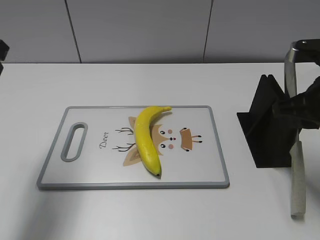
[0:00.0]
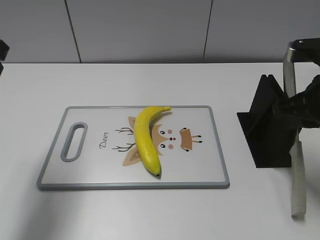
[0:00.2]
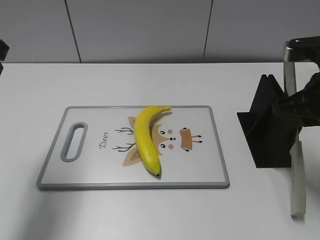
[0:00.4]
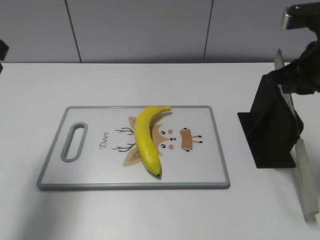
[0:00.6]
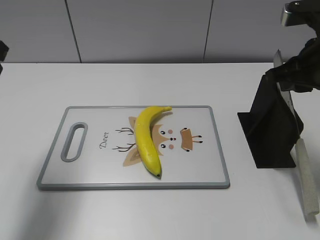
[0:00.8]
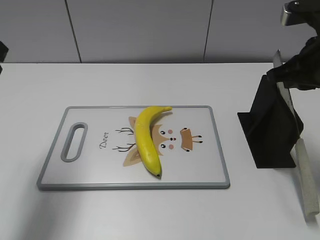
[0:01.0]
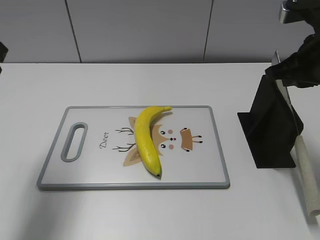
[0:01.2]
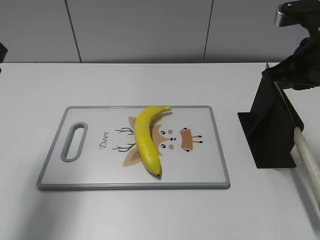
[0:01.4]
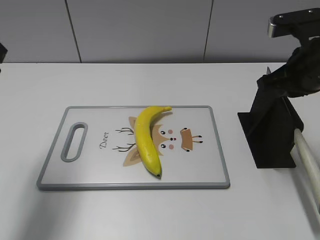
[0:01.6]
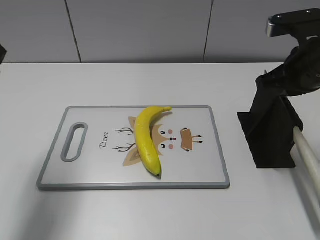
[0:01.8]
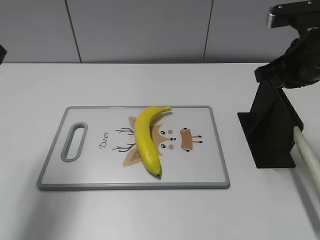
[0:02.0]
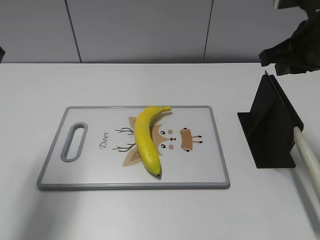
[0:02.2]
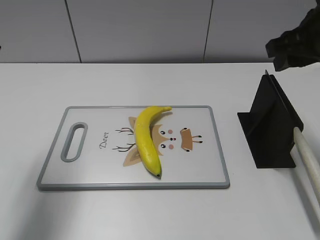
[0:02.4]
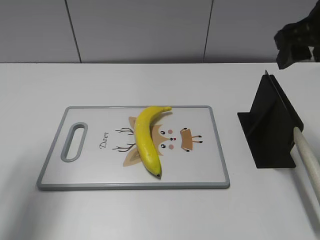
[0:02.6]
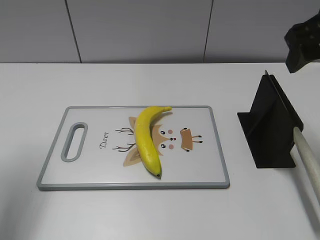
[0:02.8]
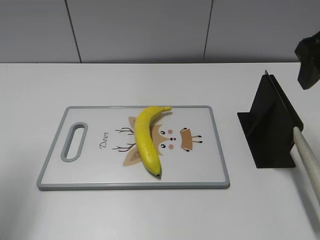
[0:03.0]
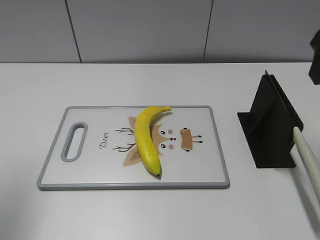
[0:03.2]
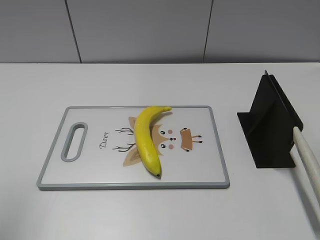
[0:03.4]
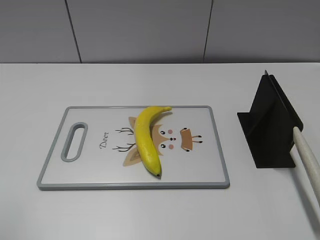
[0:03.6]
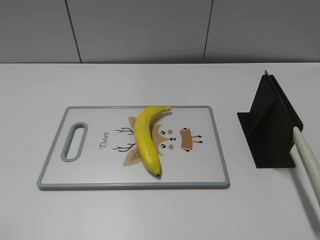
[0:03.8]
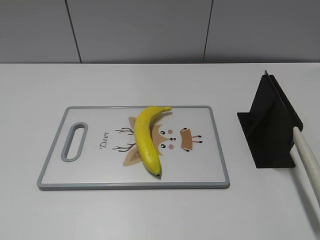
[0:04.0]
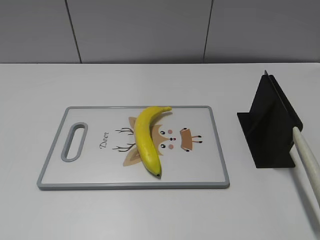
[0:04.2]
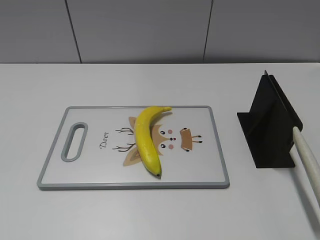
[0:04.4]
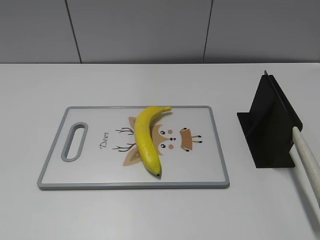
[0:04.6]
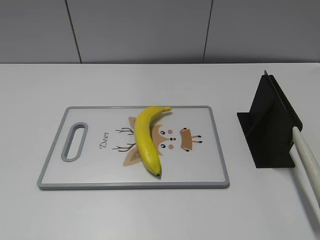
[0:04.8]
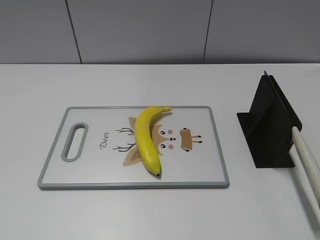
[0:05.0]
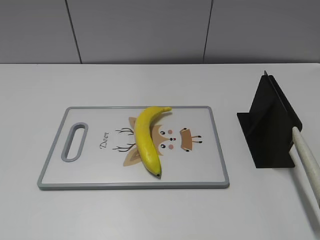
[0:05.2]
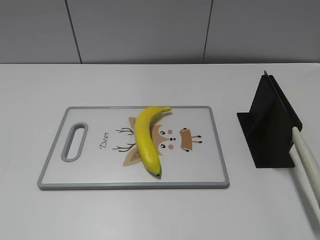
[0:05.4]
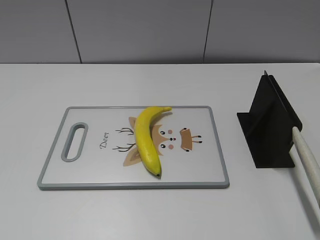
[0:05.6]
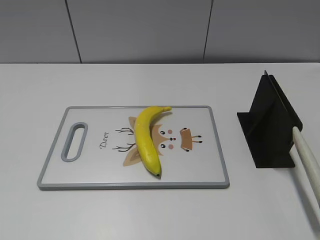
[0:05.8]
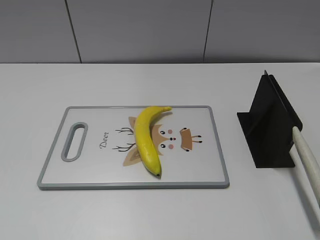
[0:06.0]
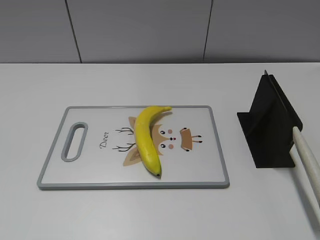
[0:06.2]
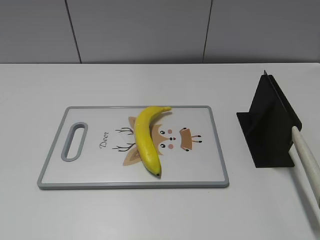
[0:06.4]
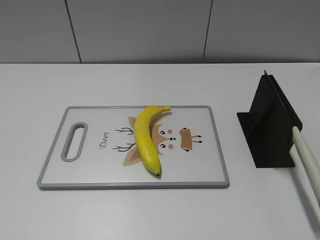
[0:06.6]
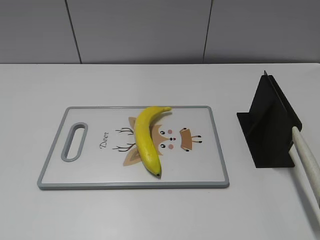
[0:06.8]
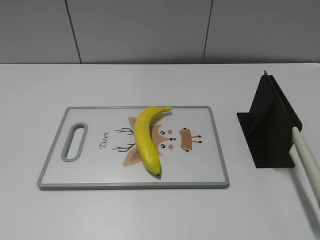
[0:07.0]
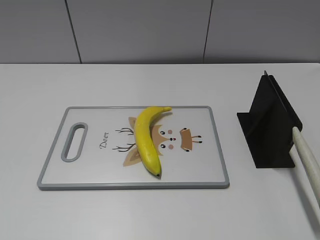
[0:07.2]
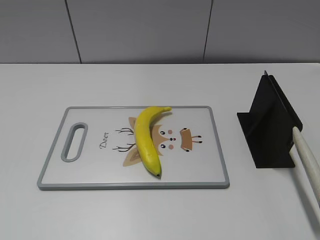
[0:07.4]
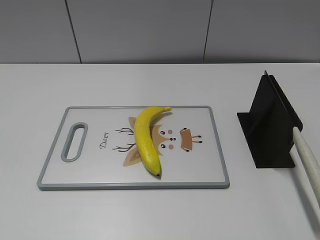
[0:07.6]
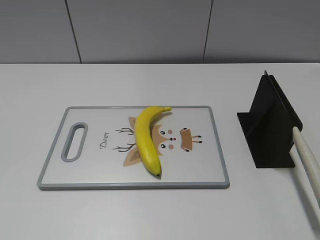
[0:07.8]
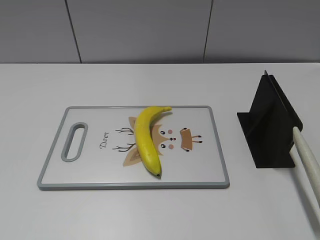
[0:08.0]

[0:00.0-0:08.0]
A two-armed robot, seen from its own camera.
Task of the whole recording: cut plastic banana.
Step, 0:00.0 to 0:08.0: Place the knife on the storage rack with your right hand.
0:00.0 to 0:01.6: The right gripper shifts by approximately 5 cm.
0:01.6 to 0:03.2: The right gripper goes some 10 cm upward, and opens its fingers. The left gripper travels to the left by roughly 5 cm.
0:03.2 to 0:04.8: The two grippers go about 25 cm backward.
